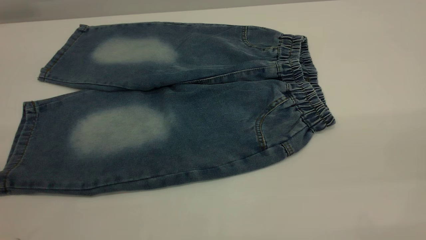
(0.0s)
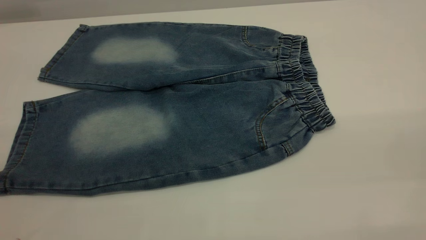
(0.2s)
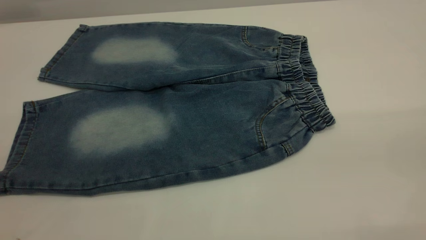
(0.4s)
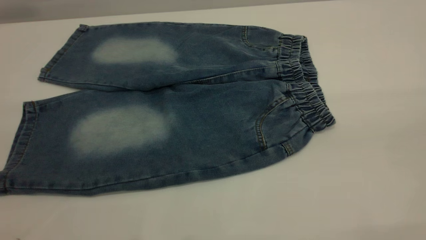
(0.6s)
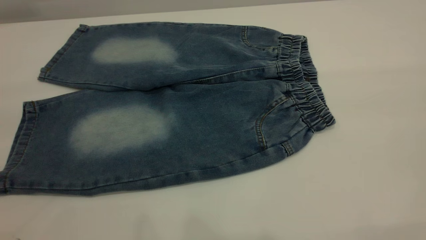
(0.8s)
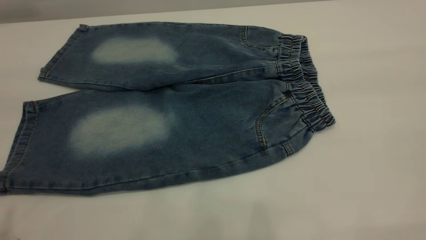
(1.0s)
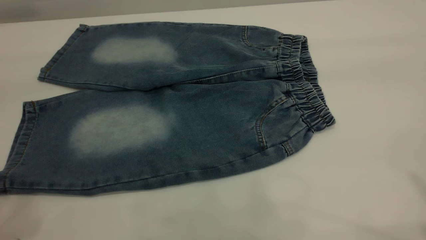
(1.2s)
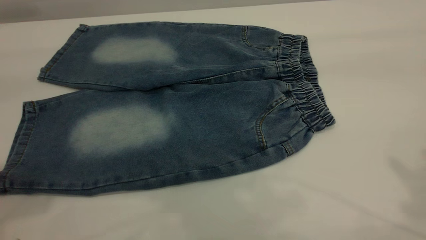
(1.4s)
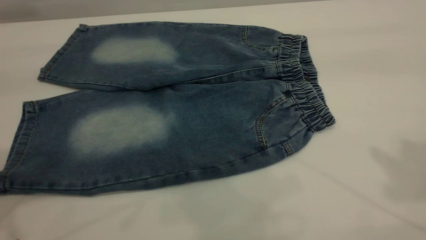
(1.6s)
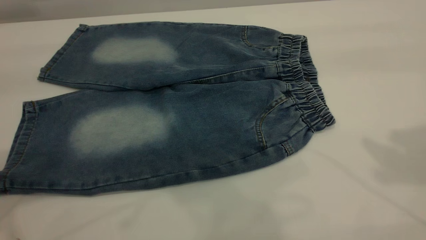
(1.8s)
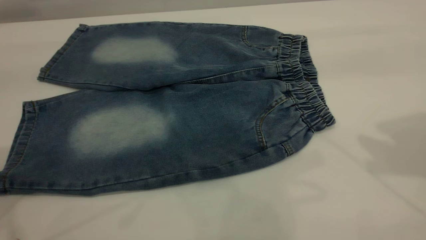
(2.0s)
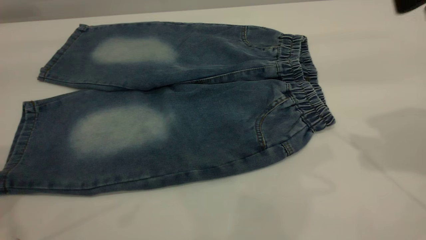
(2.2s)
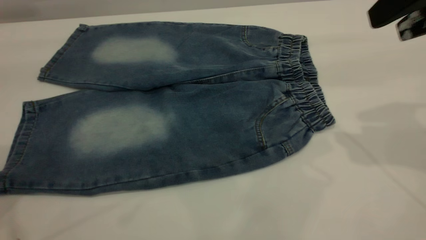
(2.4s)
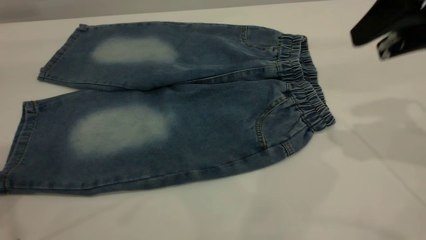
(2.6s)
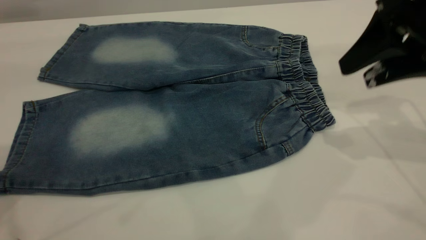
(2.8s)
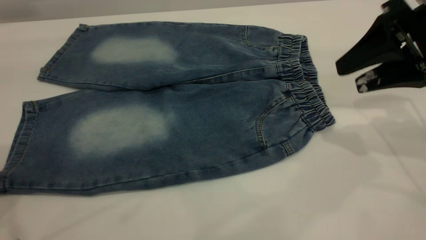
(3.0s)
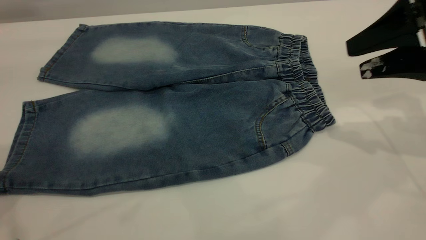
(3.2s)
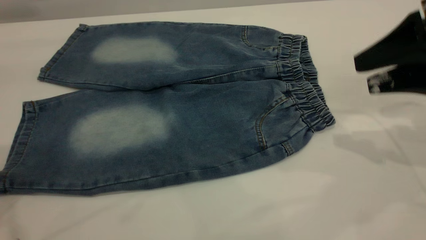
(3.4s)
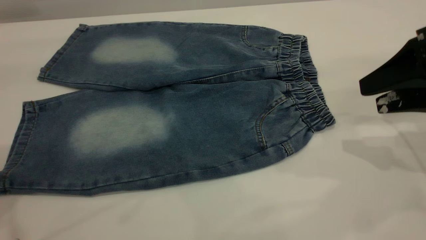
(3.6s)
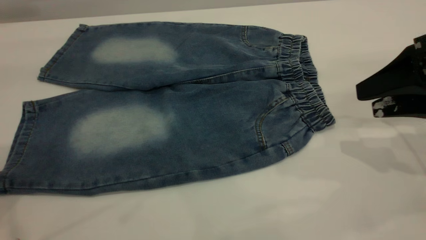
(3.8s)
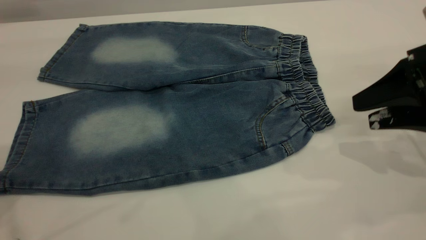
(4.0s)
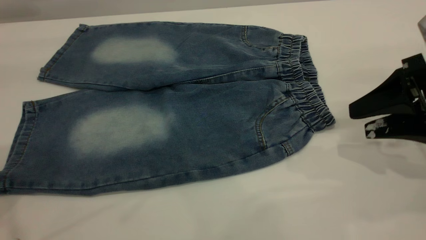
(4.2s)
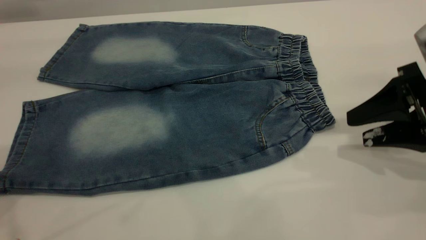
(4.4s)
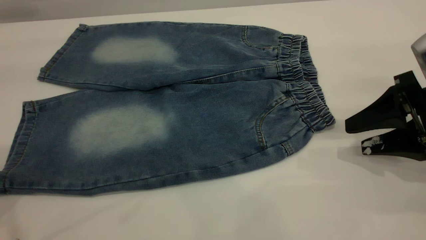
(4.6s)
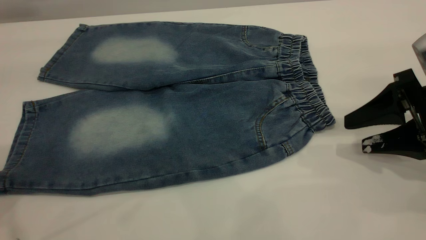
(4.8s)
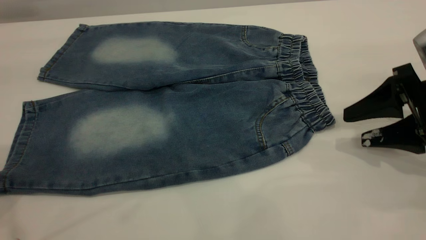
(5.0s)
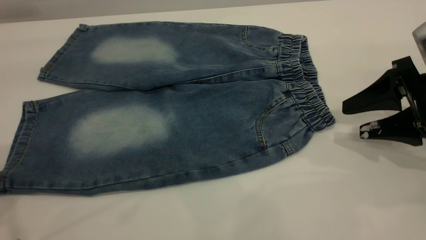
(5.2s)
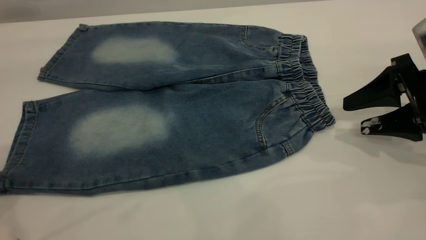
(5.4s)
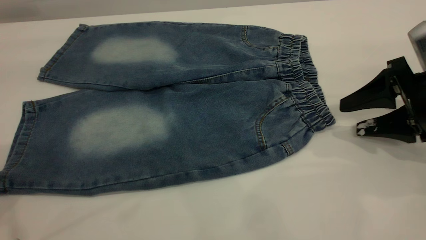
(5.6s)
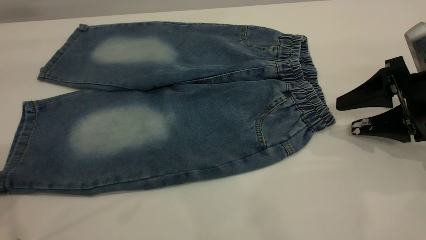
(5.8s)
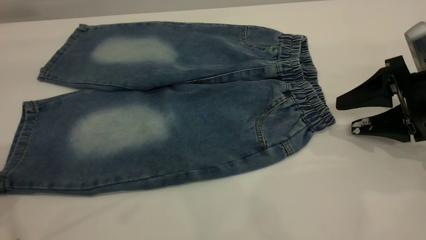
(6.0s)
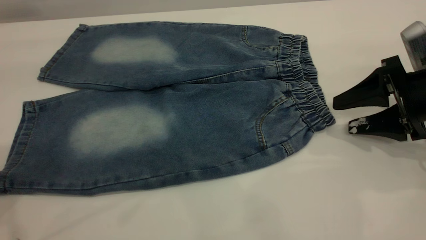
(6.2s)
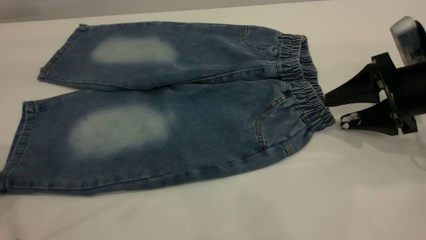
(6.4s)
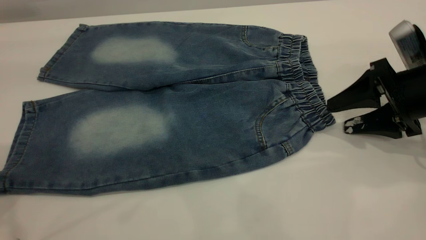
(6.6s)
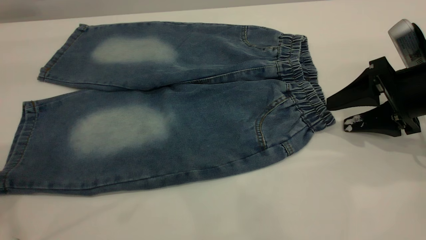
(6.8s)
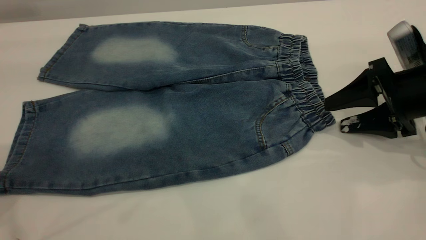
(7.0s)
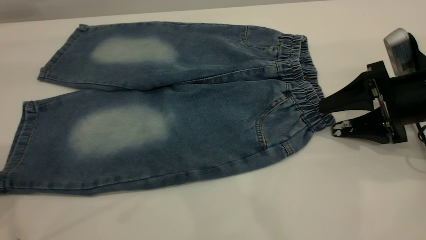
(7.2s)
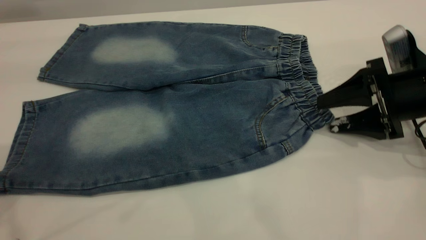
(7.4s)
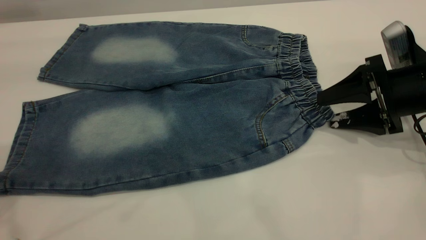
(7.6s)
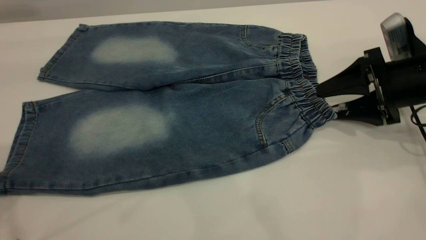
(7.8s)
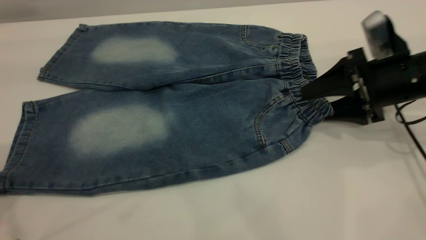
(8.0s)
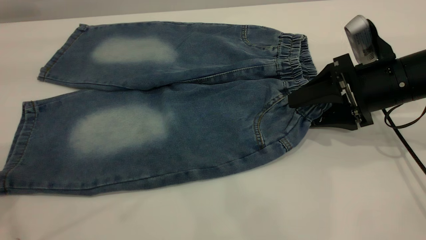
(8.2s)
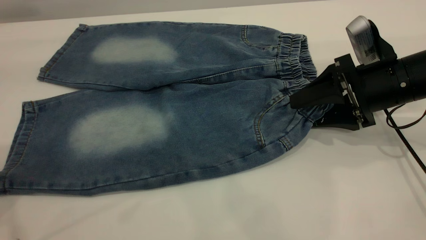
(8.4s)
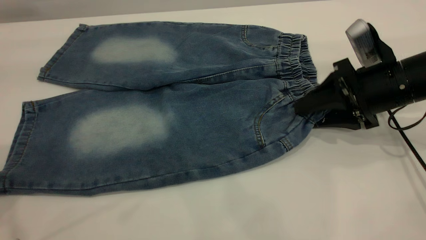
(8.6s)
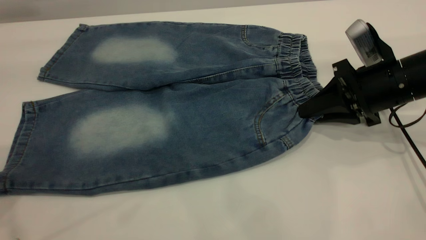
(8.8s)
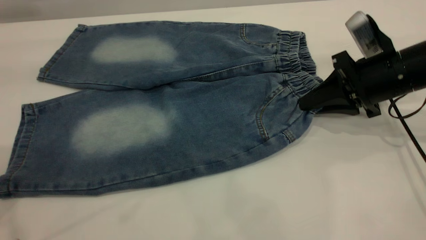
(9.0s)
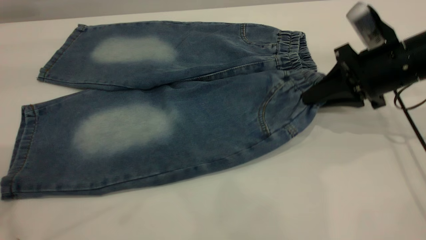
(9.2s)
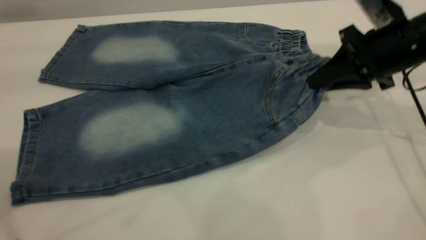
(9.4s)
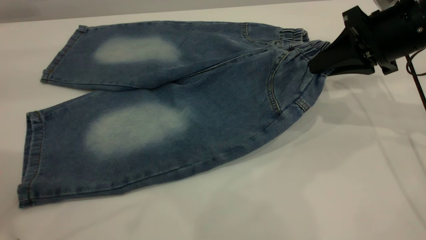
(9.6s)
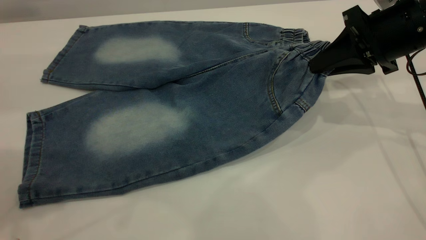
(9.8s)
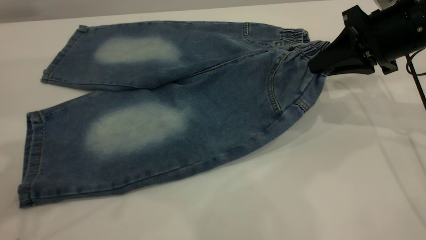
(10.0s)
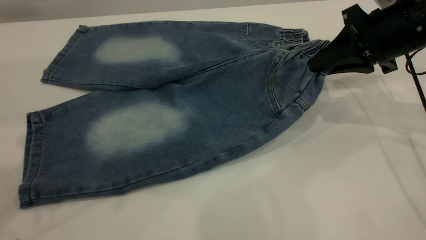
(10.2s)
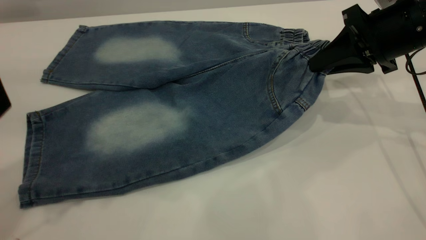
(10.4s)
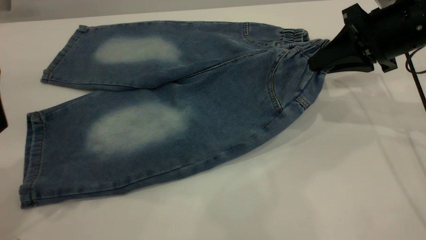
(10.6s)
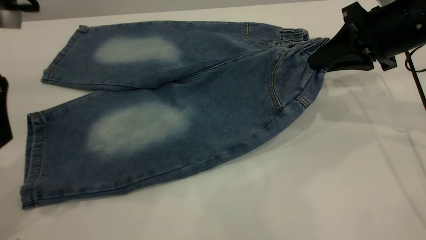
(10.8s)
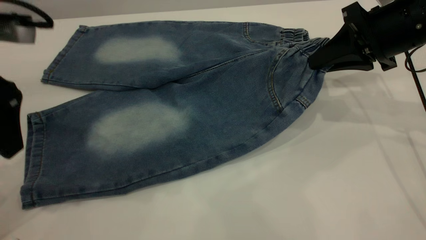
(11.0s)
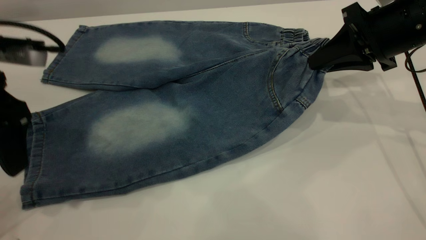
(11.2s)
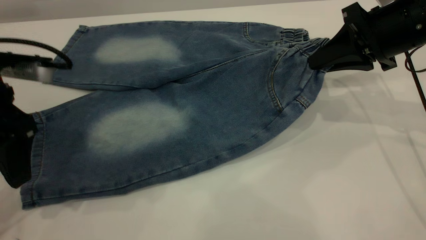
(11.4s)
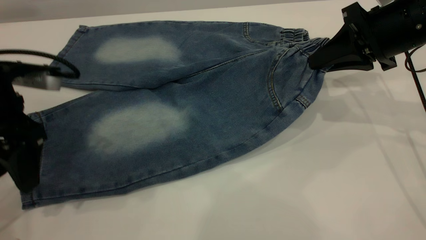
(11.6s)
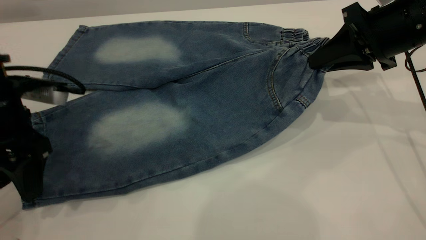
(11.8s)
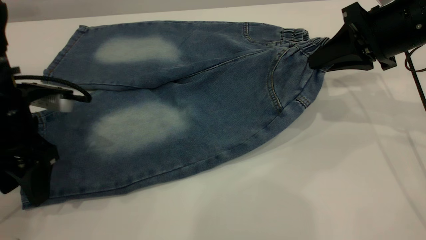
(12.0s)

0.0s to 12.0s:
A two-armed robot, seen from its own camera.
1.6s to 3.0s: The right gripper moves downward and forward, roughly 20 cm.
3.0s to 4.4s: The right gripper travels downward by approximately 10 cm.
4.4s to 6.0s: The grippers stay close to where they were, moving slightly.
6.0s to 7.6s: The grippers stay close to where they were, moving slightly.
7.6s to 9.0s: The right gripper closes up.
9.0s to 10.4s: The left gripper moves downward, some 10 cm, while the right gripper heads upward, covering roughly 5 cm.
10.4s to 12.0s: The left gripper shifts about 15 cm downward.

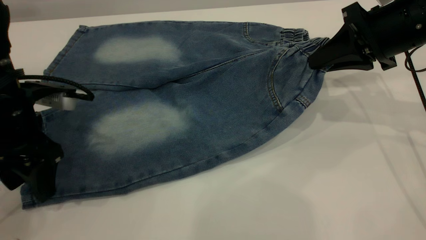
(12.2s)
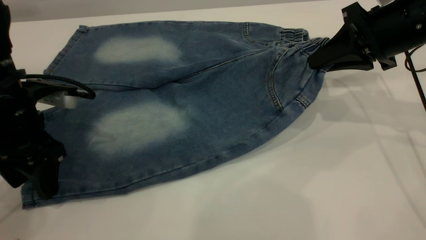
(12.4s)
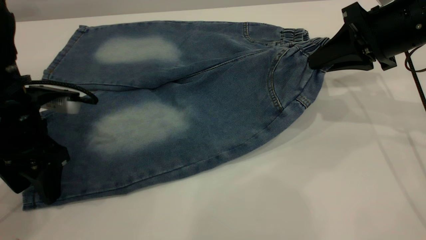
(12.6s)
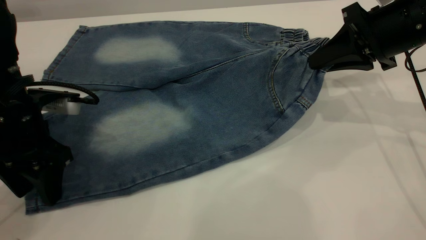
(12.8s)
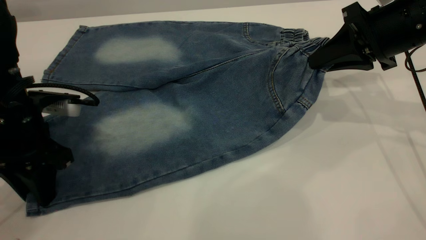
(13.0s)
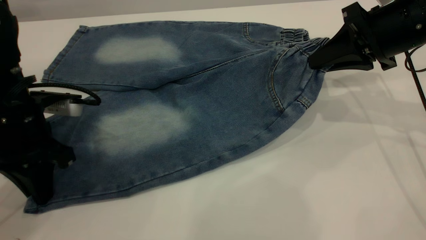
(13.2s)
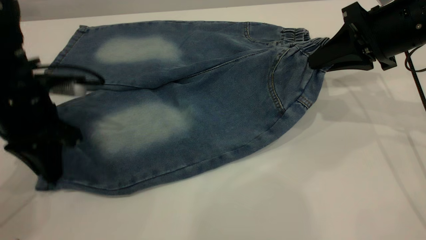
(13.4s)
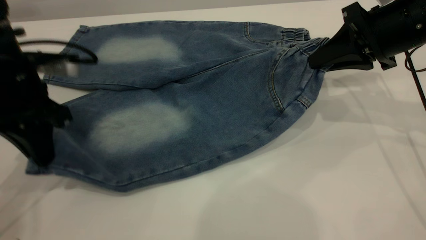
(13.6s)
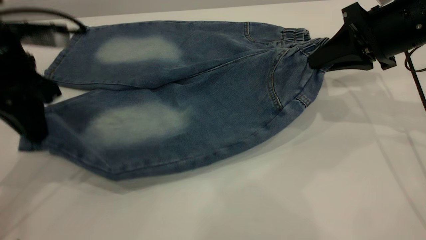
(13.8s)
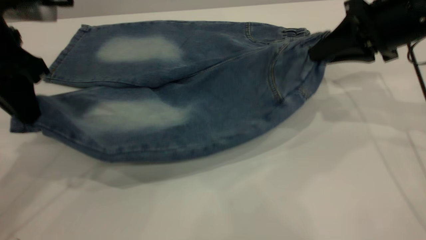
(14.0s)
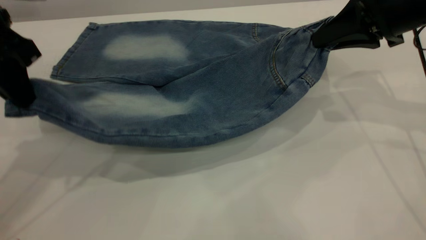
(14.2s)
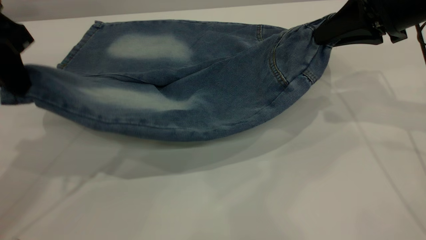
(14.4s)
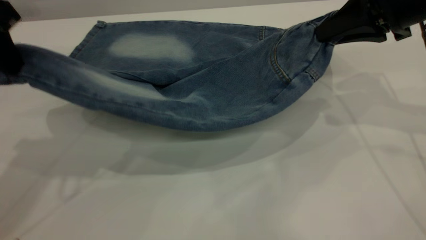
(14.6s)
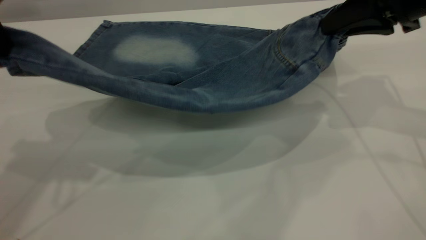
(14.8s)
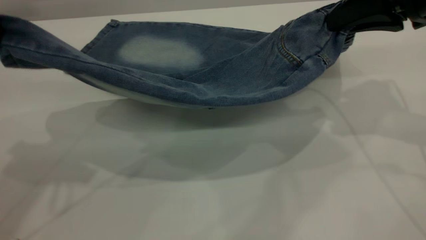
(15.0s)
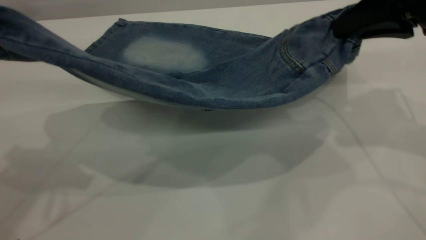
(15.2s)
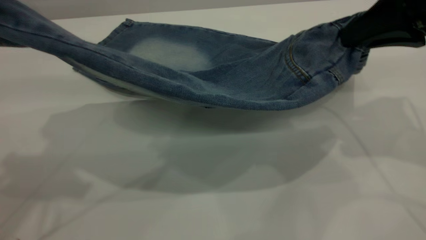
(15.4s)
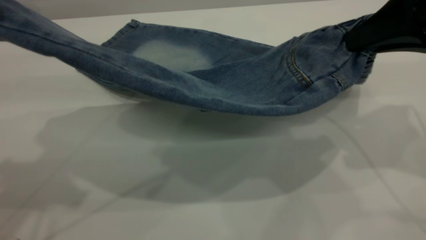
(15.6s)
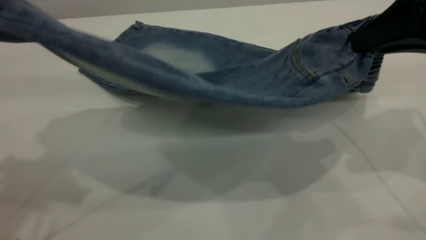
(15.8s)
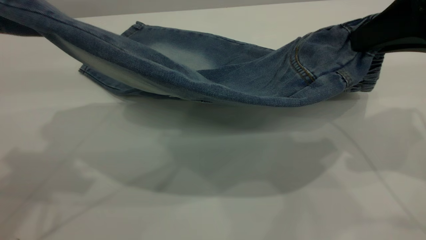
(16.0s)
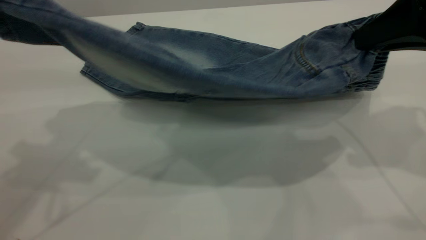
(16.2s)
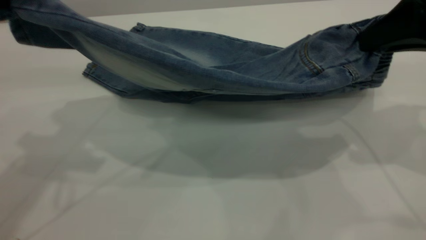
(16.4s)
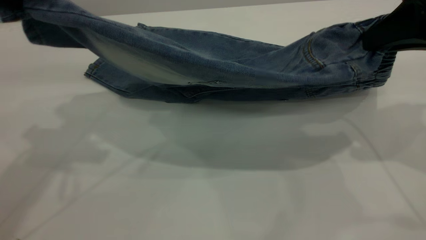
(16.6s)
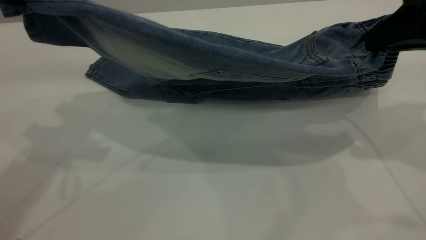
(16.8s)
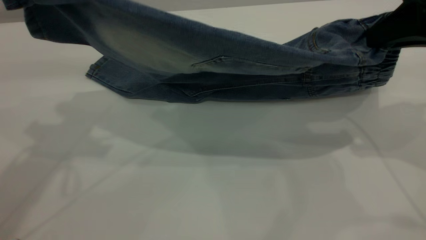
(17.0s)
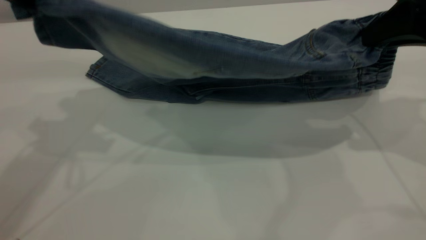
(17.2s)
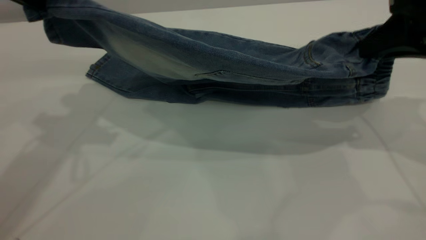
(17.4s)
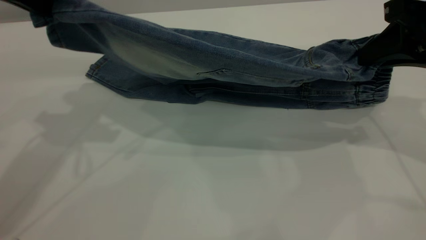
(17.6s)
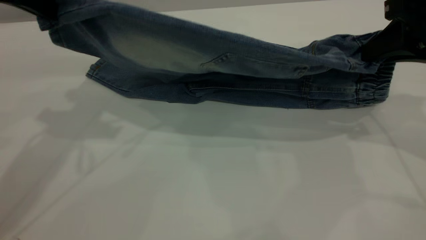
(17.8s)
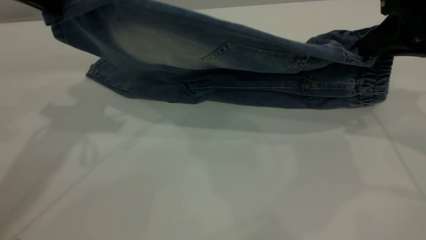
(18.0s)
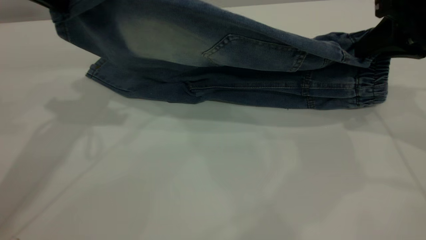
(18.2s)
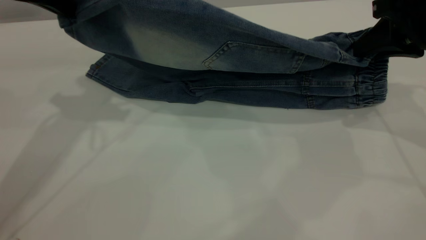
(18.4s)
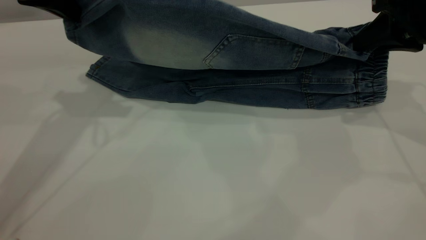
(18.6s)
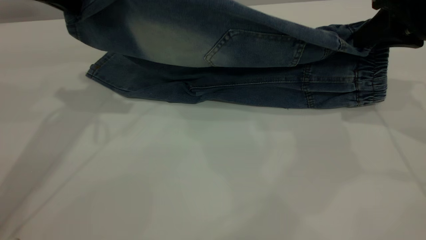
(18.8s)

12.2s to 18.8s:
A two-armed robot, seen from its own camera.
12.2s to 13.8s: The left gripper moves upward, about 5 cm, and closes its fingers.
13.8s to 15.4s: The right gripper moves backward and upward, about 10 cm. Meanwhile the left gripper is displaced upward by approximately 15 cm.
15.4s to 17.2s: The left gripper is displaced forward by approximately 5 cm.
17.2s to 18.8s: The right gripper shifts by some 5 cm. The left gripper heads forward, covering some 5 cm.
